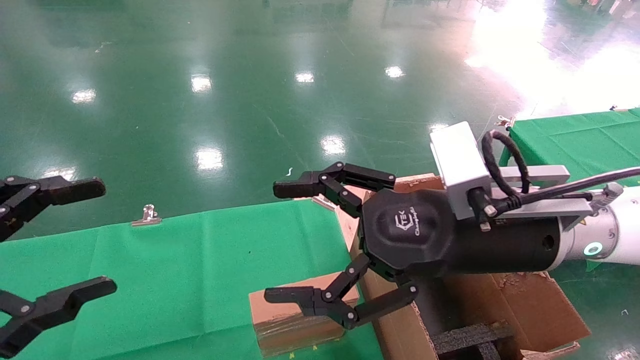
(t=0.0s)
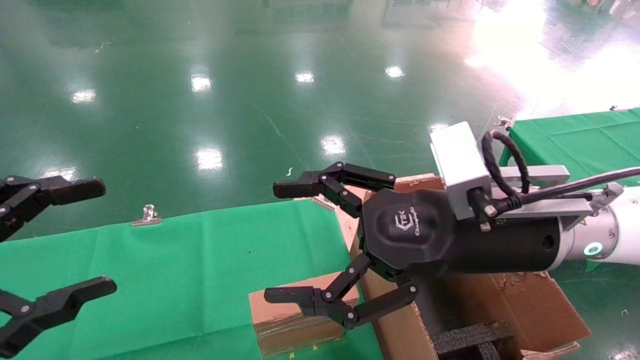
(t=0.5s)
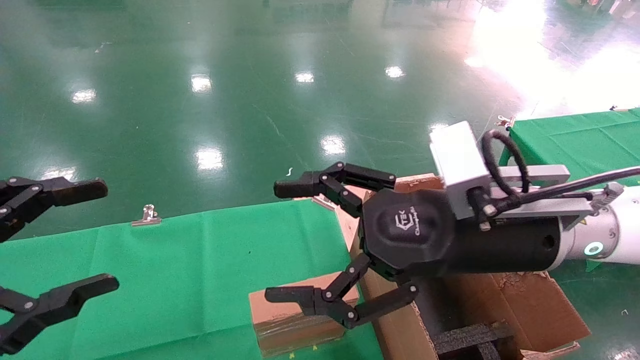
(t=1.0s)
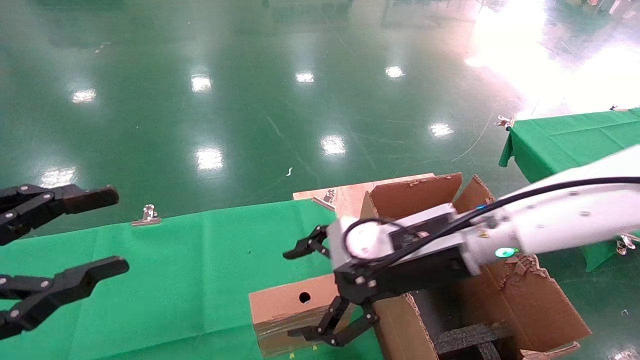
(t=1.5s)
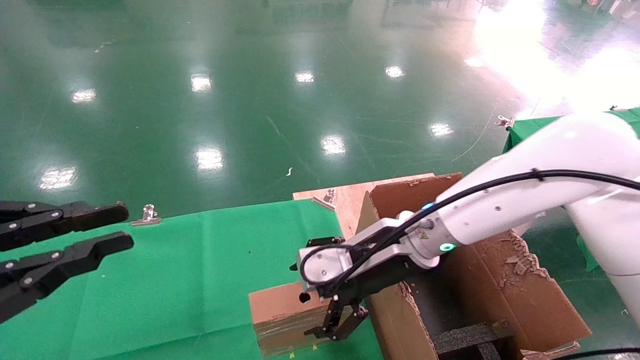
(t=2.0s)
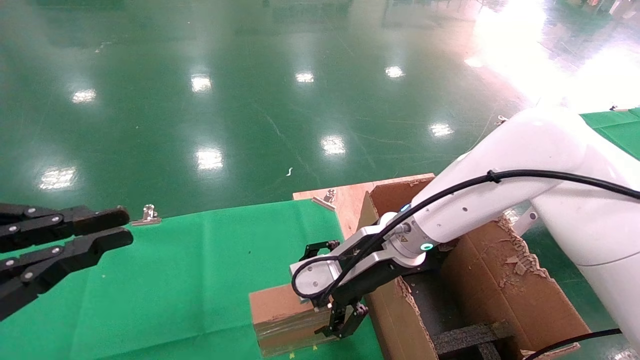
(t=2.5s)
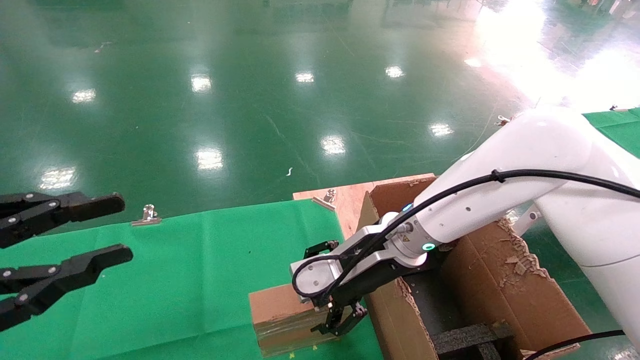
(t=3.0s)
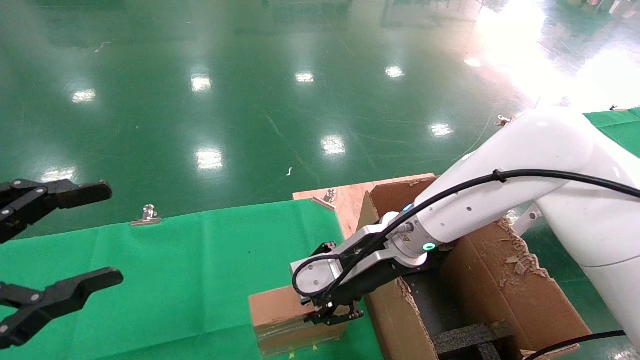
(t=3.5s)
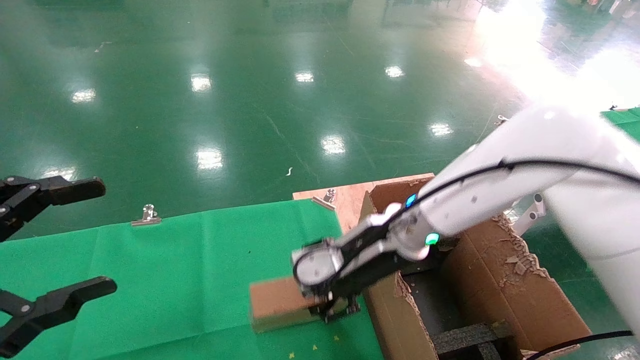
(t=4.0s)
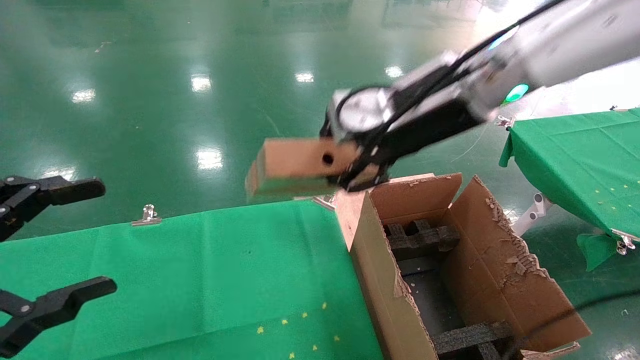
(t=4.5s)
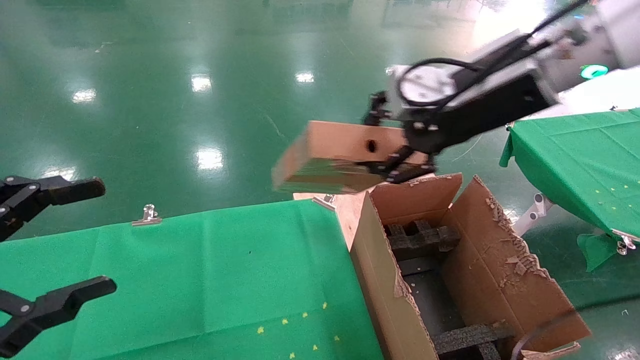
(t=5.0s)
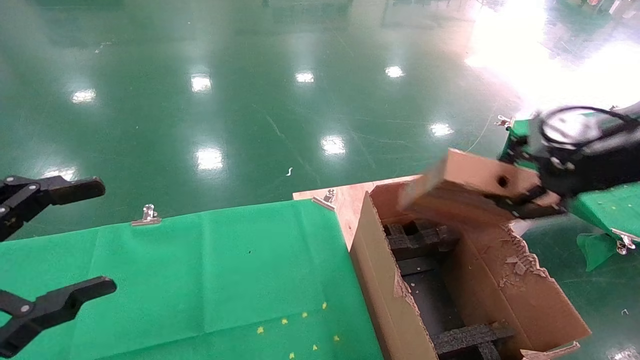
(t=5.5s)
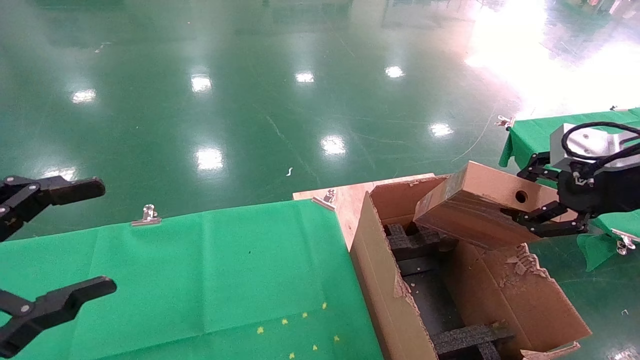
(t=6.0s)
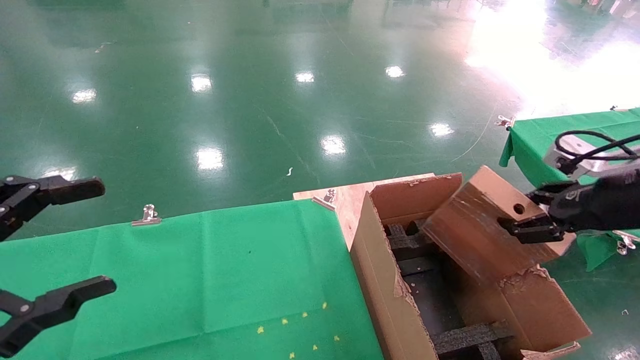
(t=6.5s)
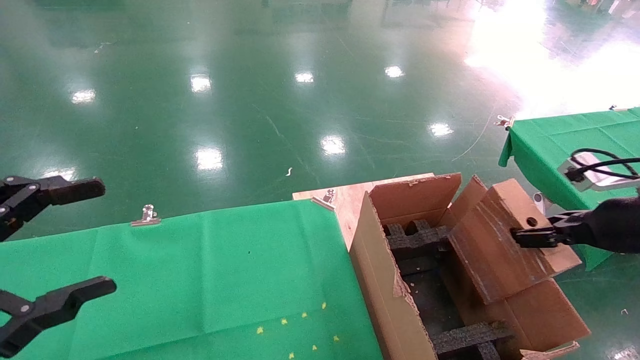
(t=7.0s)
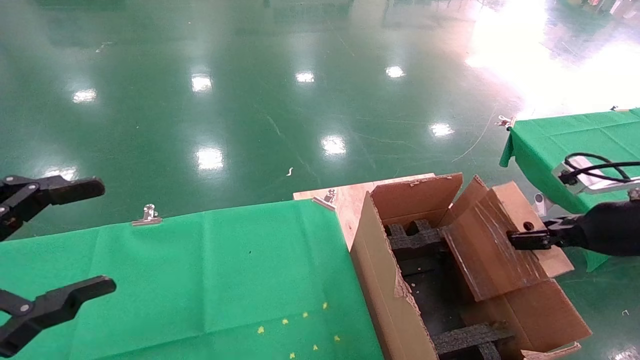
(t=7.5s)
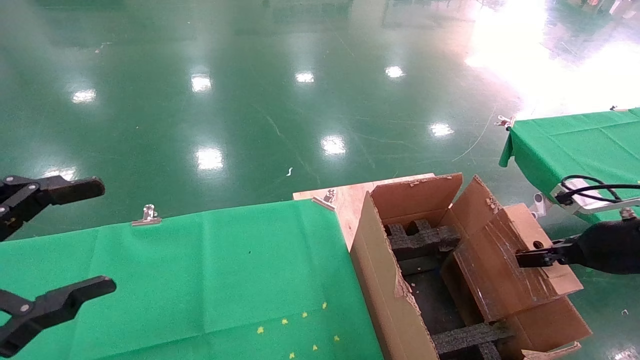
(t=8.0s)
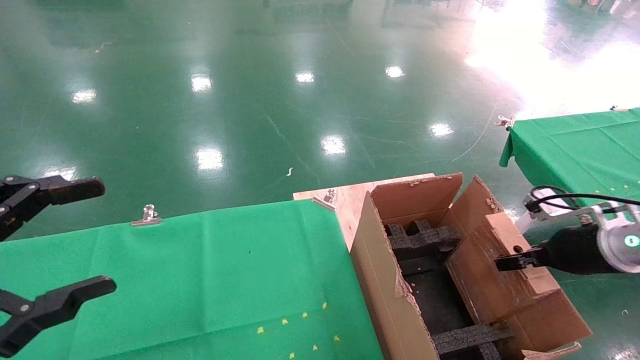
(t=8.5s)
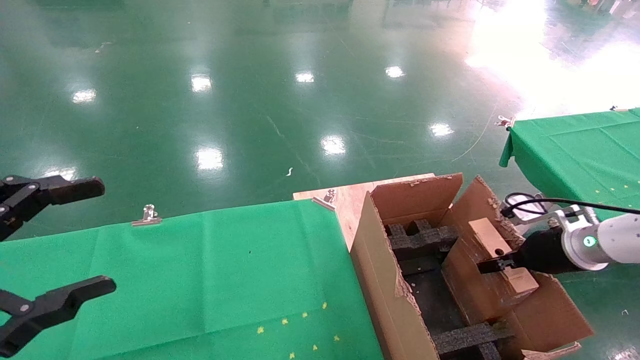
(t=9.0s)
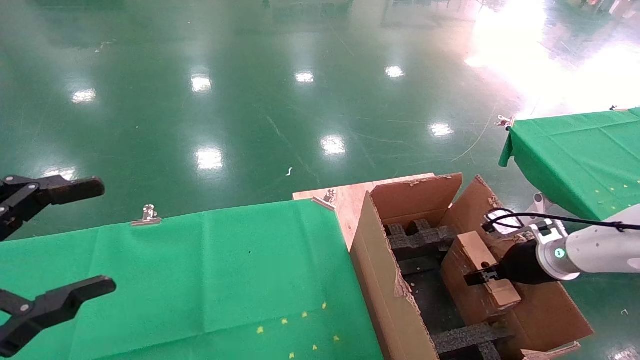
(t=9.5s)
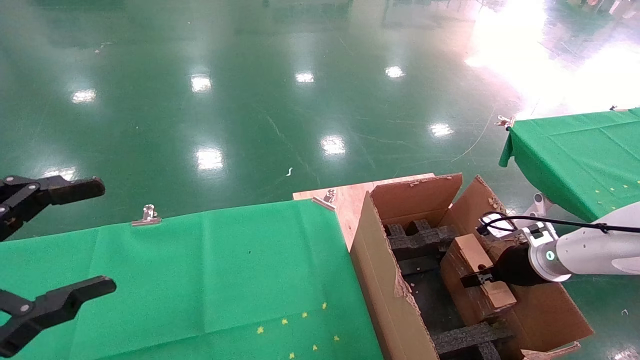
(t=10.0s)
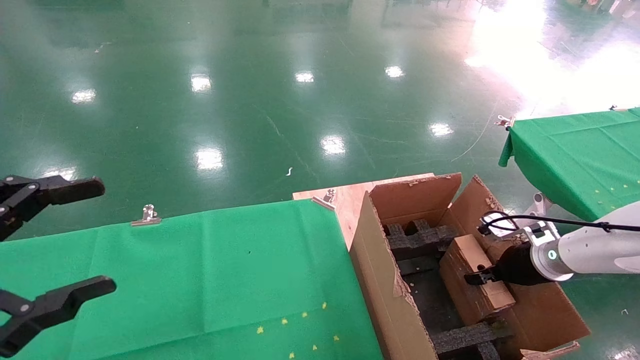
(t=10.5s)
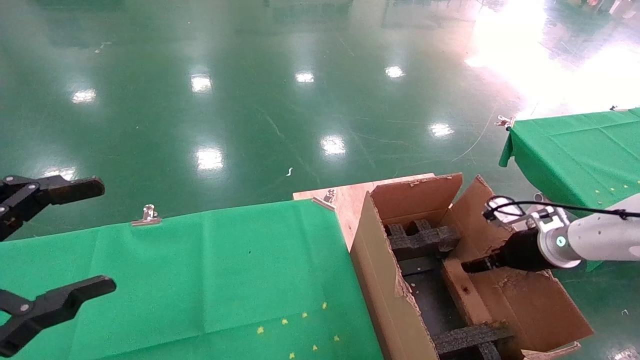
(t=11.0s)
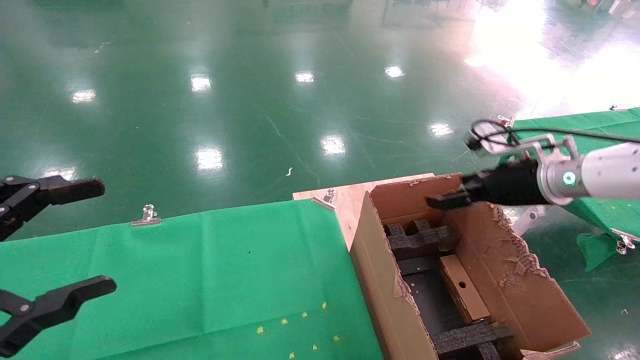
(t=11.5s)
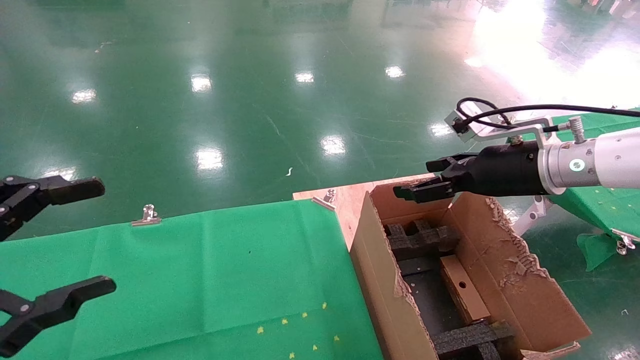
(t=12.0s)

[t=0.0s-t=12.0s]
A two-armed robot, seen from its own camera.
Task of the whole recording: using a robotic arm to pick up a cardboard box and palace it the carton.
Step, t=1.5s to t=3.5s: Pick up the mouse and the power cord paper box.
Step, t=4.0s to t=11.5s: Place the mouse and the power cord paper box into the container.
t=0.0s to t=2.0s: The left gripper closes its fingers. The right gripper shifts approximately 15 cm forward, downward and to the left.
t=2.0s to t=4.0s: The left gripper opens; the right gripper closes up.
t=4.0s to t=6.0s: The right gripper travels to the right and backward by about 30 cm.
t=6.0s to t=8.0s: The right gripper is displaced downward by about 15 cm.
t=8.0s to t=10.0s: The right gripper moves forward and downward, some 15 cm.
t=10.0s to t=12.0s: The right gripper shifts roughly 20 cm upward and to the left, and opens up.

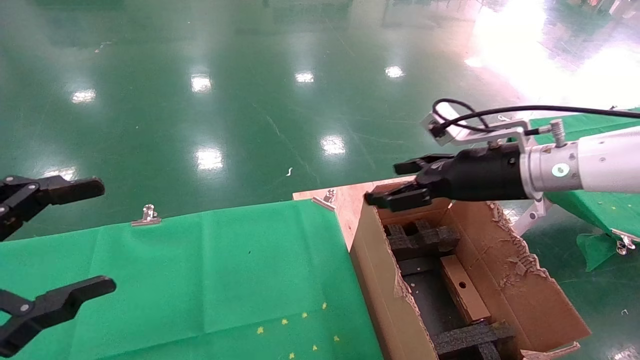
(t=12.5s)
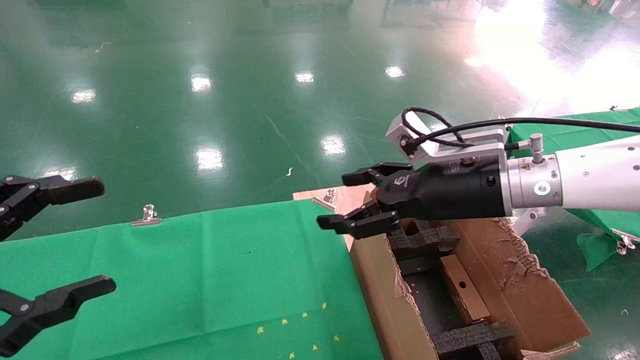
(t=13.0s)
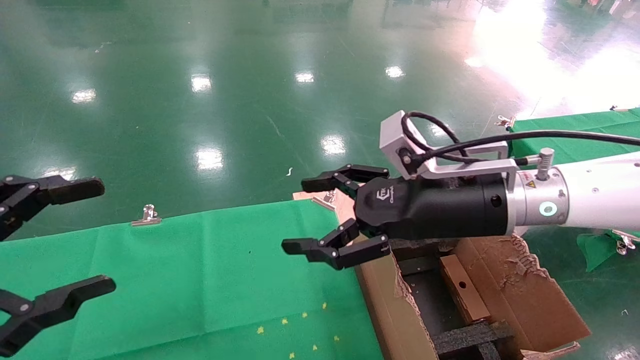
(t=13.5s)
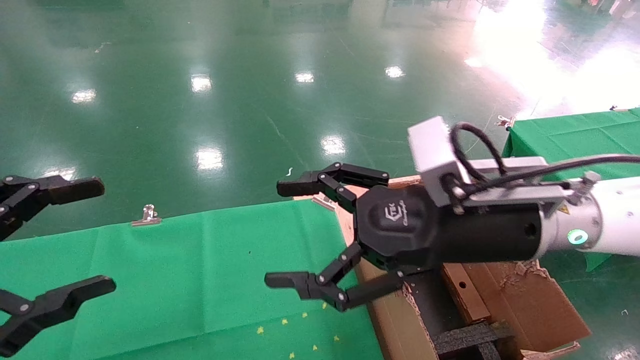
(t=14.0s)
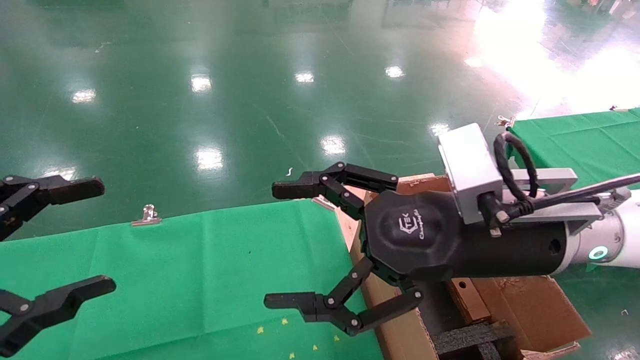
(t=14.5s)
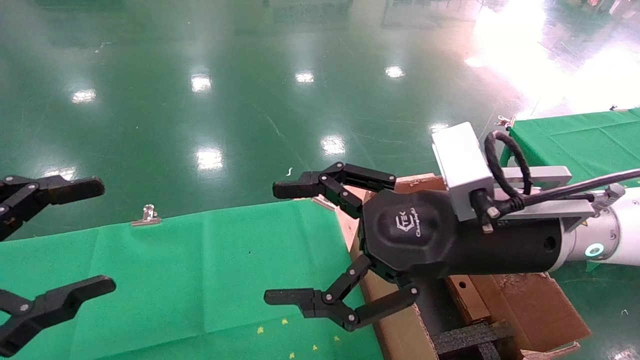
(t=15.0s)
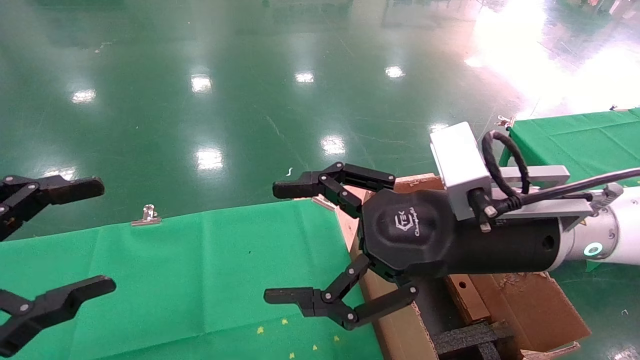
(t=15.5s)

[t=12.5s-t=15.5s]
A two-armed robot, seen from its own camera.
Task of the whole recording: using a robotic arm to pick up a cardboard box and palace it the carton.
t=12.5s to t=14.0s: The right gripper moves to the left and backward, approximately 15 cm.
t=14.0s to t=15.5s: The grippers stay close to where they were, moving slightly.
